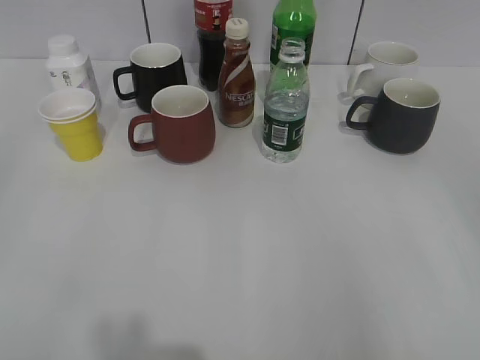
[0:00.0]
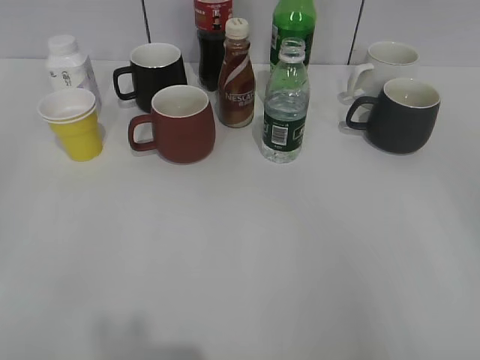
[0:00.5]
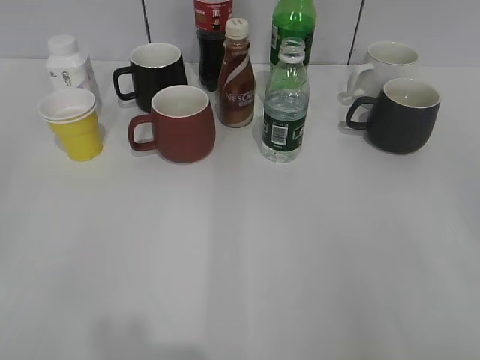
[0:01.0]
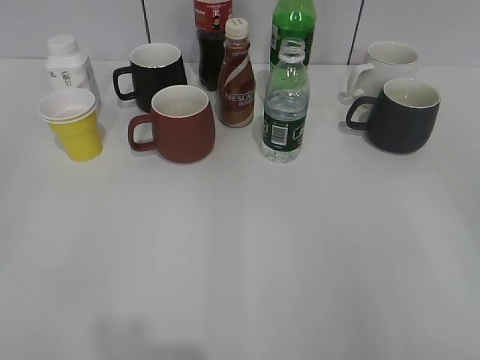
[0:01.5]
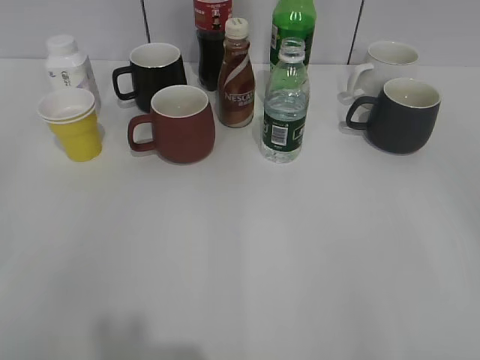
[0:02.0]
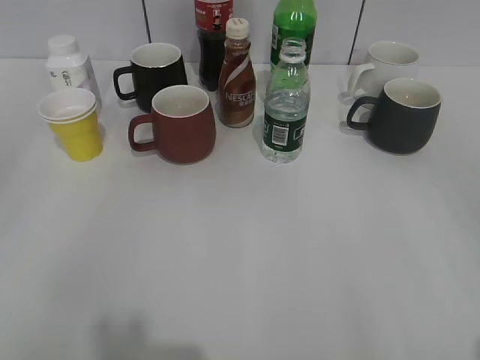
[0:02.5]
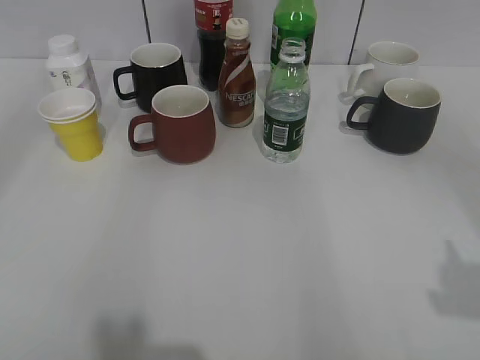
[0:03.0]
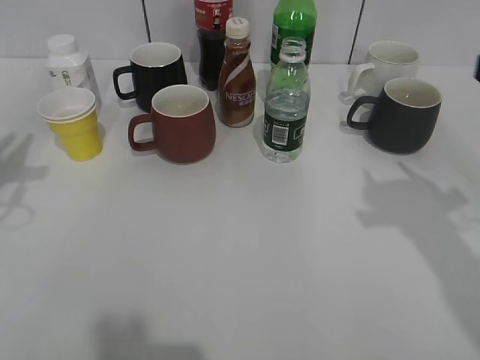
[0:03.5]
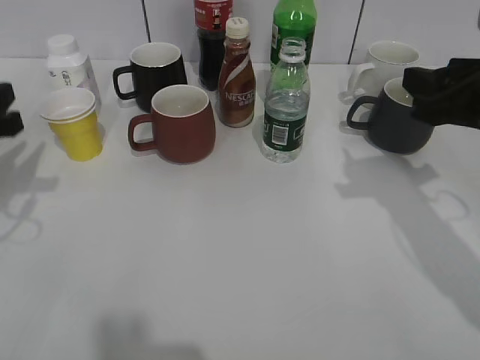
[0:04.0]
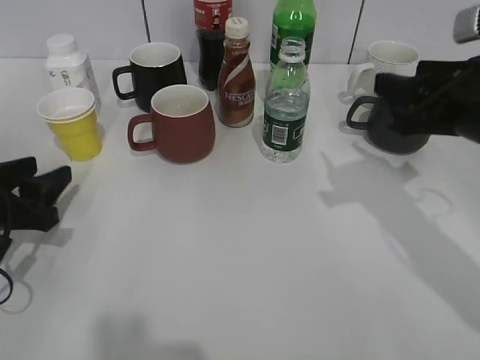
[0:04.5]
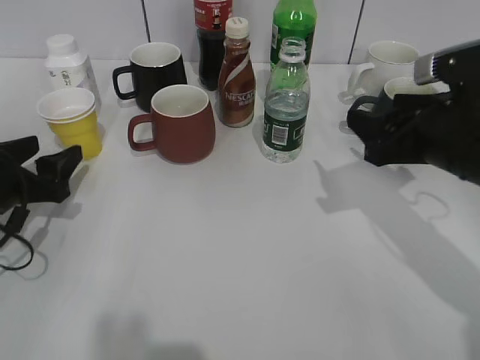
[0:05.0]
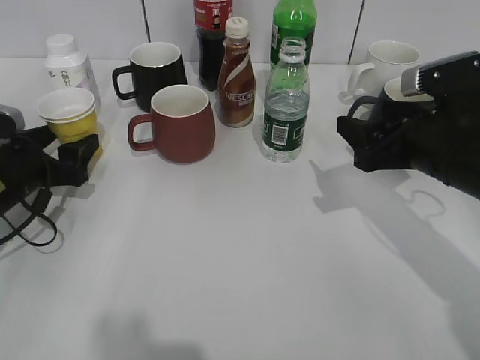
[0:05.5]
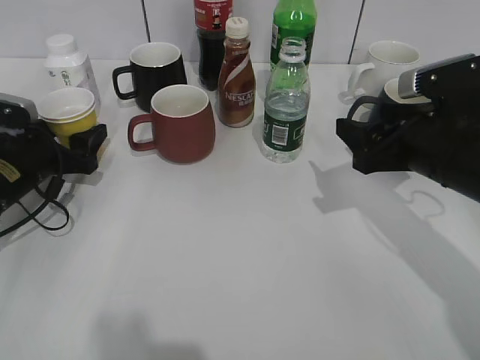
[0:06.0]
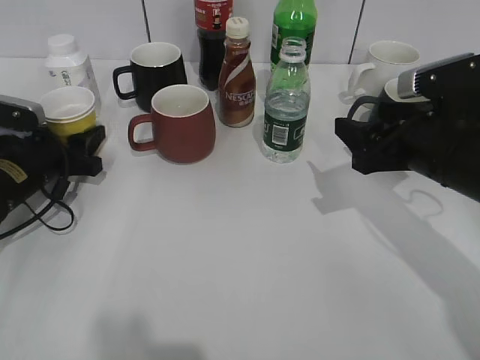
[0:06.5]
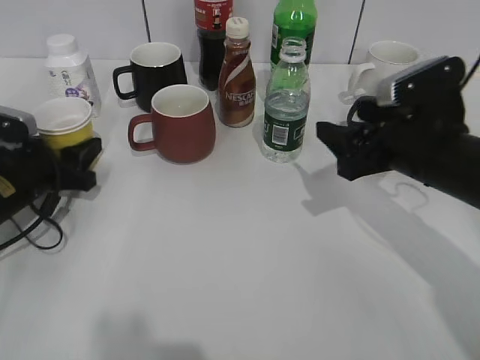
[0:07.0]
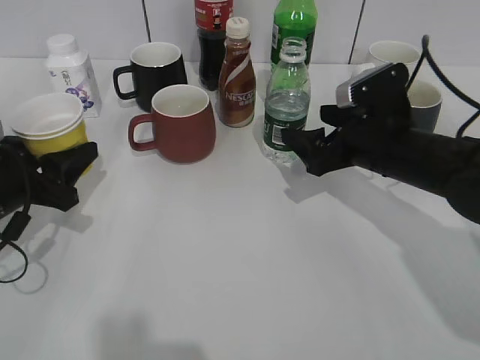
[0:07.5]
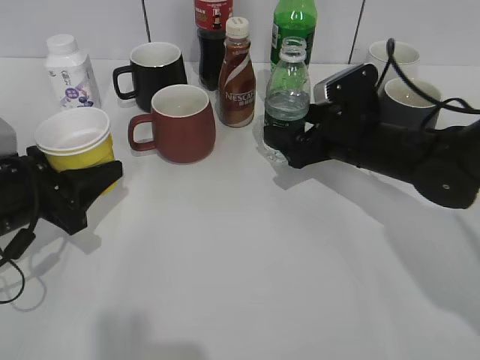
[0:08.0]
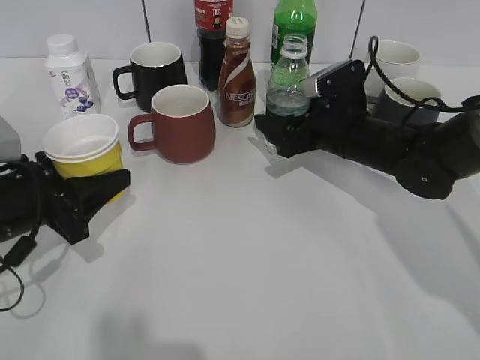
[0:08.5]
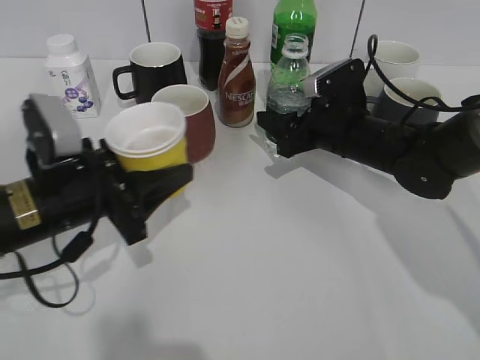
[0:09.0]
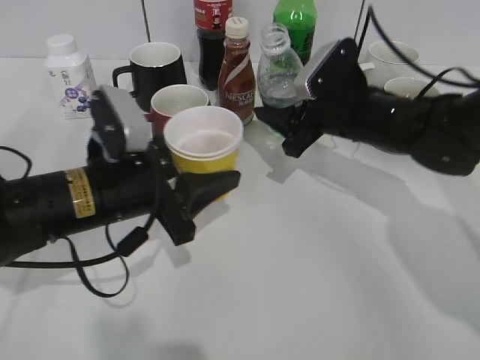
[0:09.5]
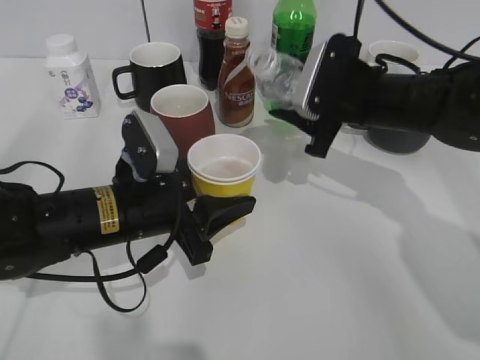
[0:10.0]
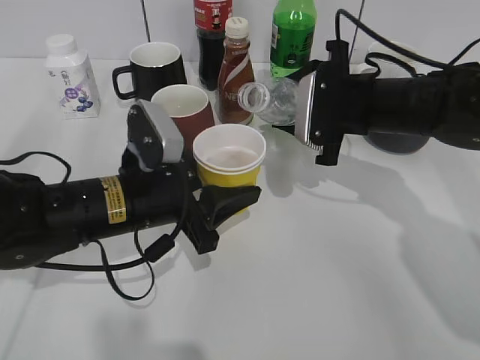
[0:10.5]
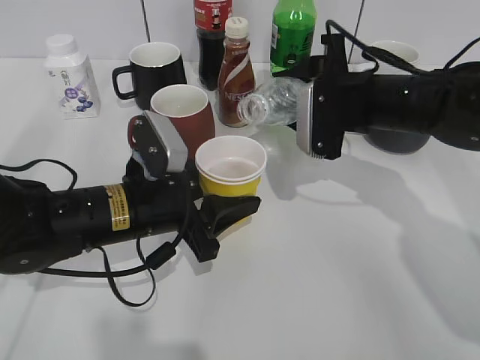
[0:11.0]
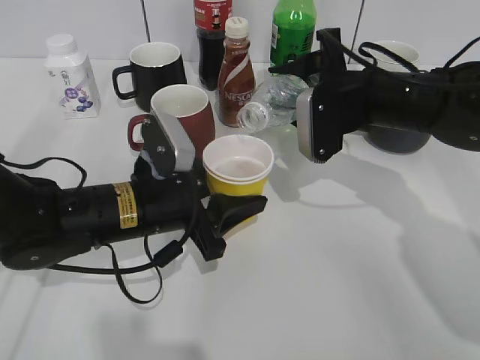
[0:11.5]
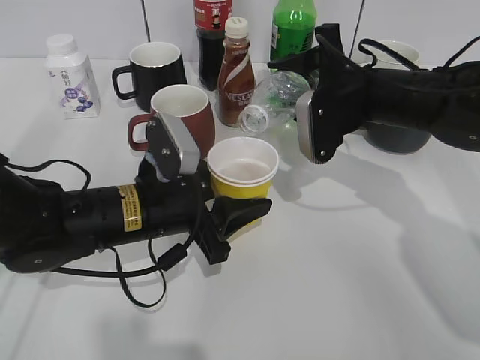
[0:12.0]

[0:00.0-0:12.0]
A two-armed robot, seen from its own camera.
Step, 0:00.0 to 0:06.0: Grasp the yellow paper cup with left gripper.
Step, 0:06.5 to 0:07.5: Lift the yellow paper cup with left gripper.
Step, 0:08.0 to 0:08.5: Grasp the bottle with water with right gripper.
0:02.0 to 0:04.0: The grippers both shift forward by some 25 cm.
0:04.0 to 0:06.0: The right gripper is displaced downward by approximately 5 cm, and opens up. The left gripper shifts approximately 10 cm downward and forward, and opens up.
0:06.0 to 0:08.0: The left gripper moves backward, approximately 10 cm, and closes its fingers; the right gripper heads forward, downward and to the left, covering some 10 cm, and opens.
0:08.0 to 0:10.0: The right gripper travels upward by roughly 5 cm, and closes its fingers. Meanwhile the left gripper is displaced to the right by some 15 cm.

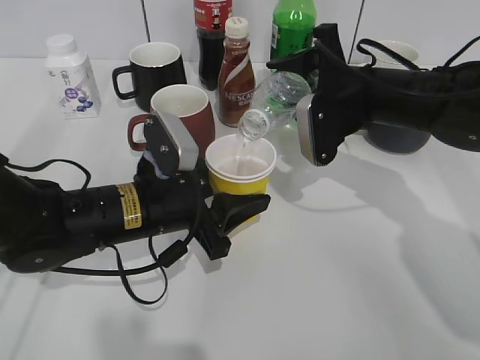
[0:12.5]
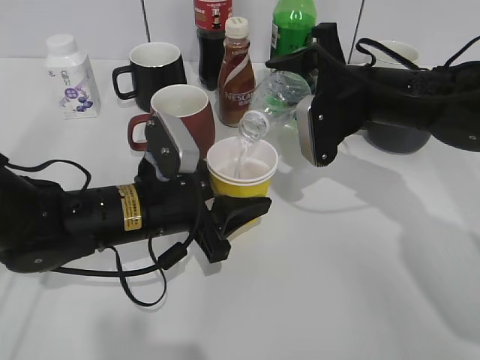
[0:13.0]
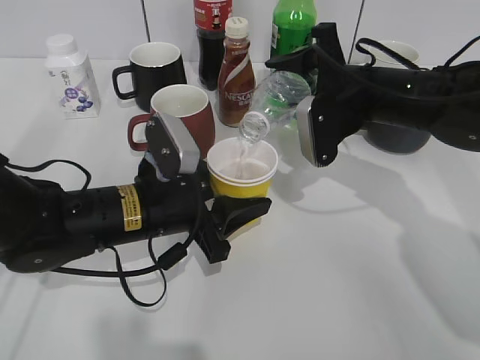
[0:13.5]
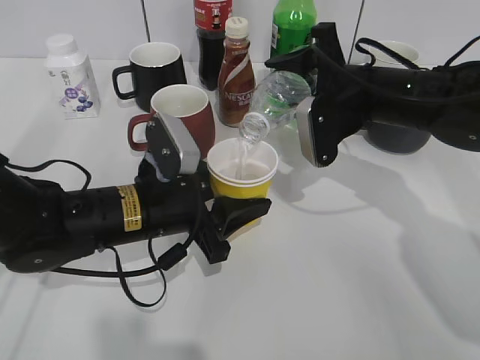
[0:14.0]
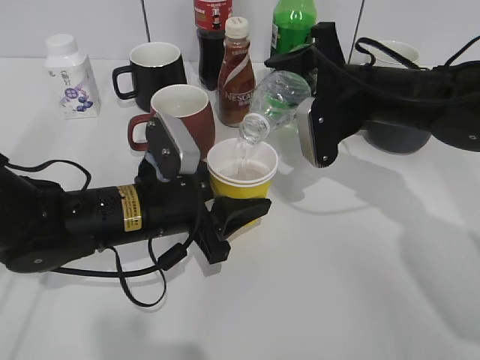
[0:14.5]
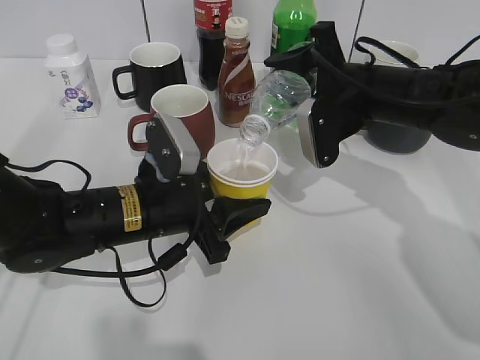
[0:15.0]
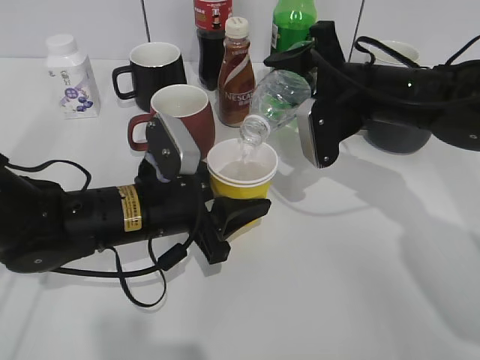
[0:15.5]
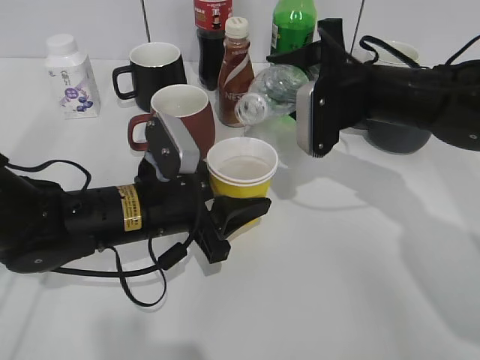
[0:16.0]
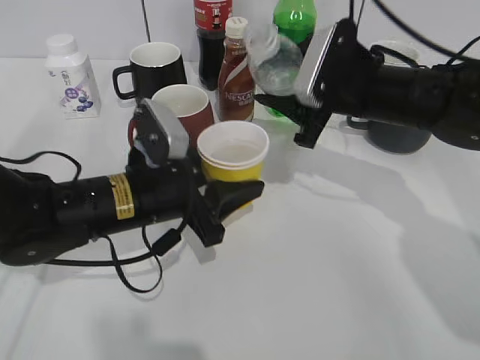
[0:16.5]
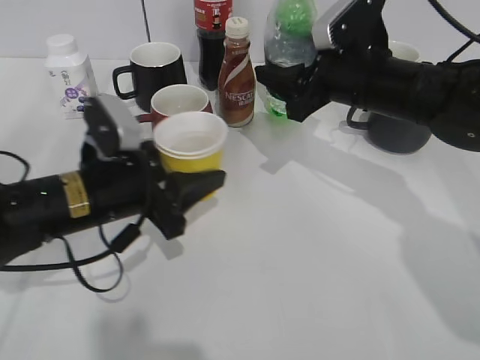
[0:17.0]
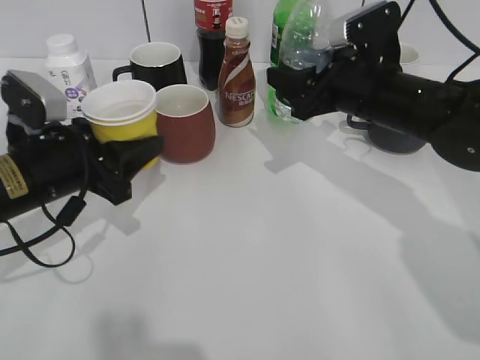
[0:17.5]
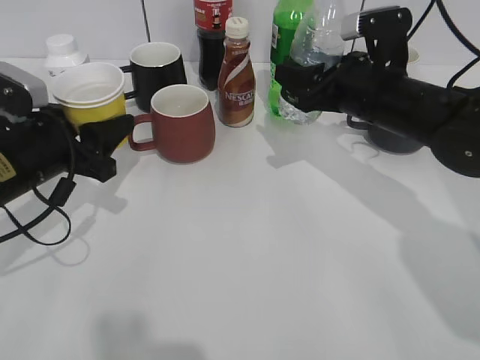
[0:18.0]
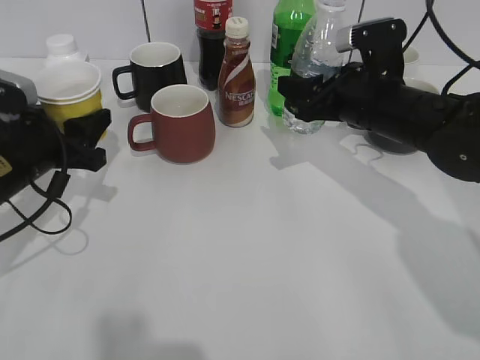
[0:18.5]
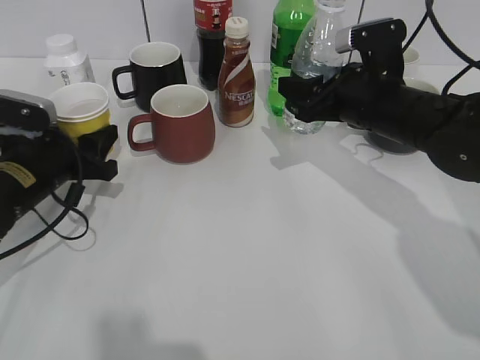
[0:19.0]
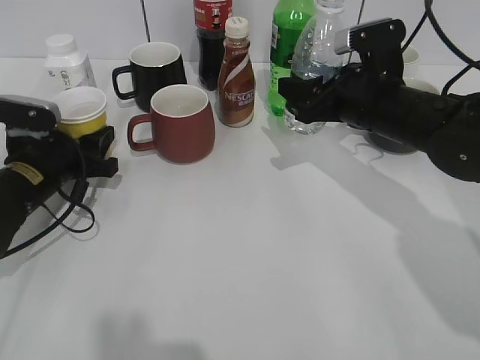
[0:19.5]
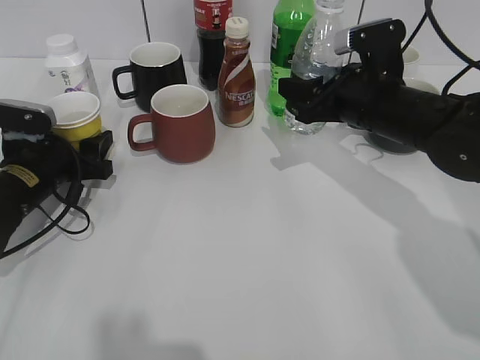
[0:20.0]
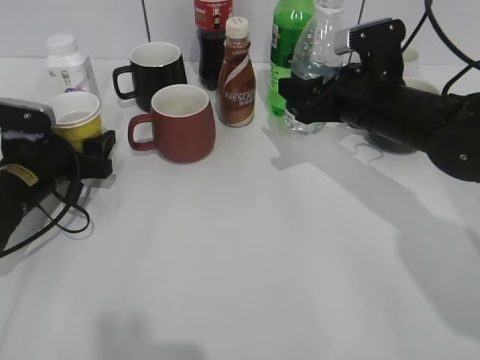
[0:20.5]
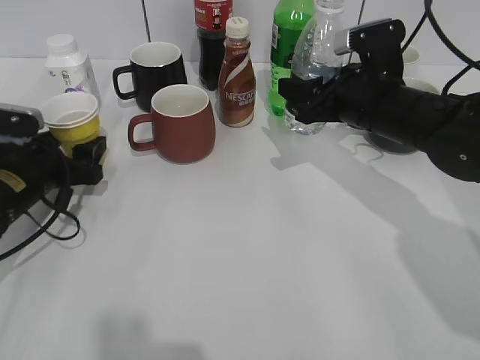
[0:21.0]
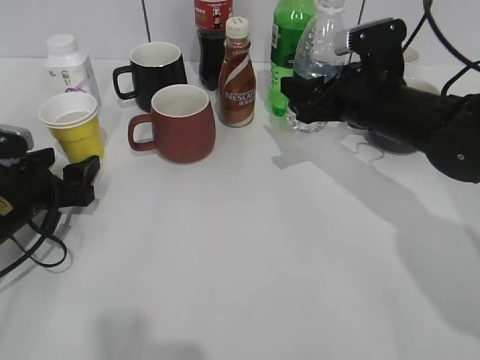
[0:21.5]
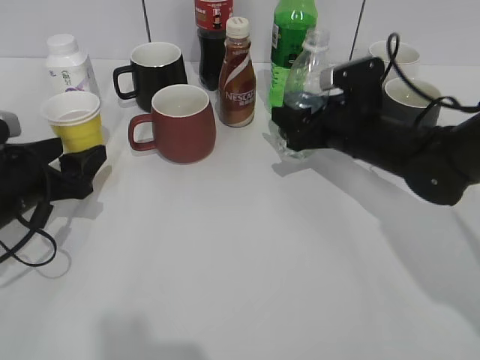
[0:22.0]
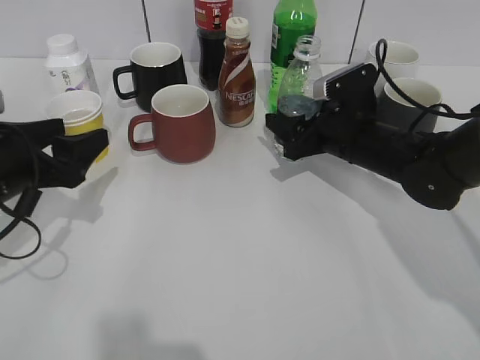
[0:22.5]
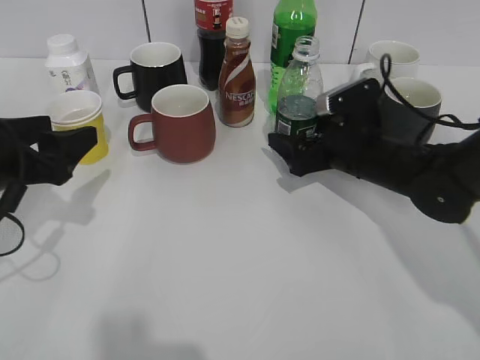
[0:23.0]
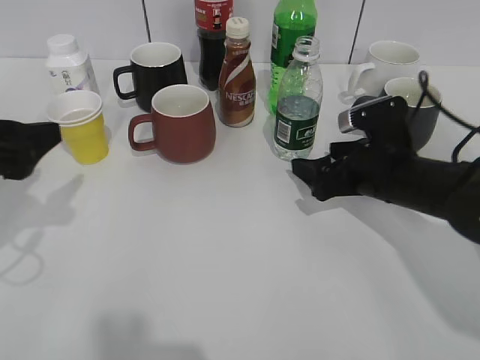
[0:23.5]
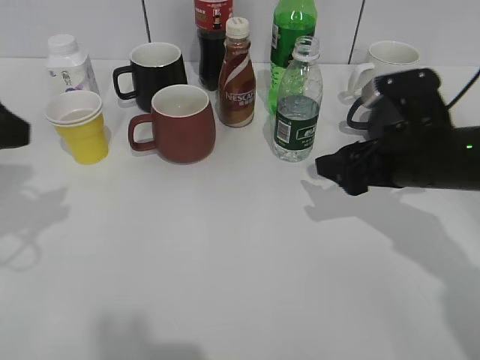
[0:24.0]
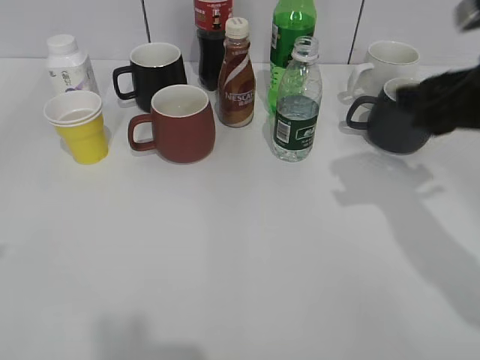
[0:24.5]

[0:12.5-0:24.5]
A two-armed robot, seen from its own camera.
Step, 0:12.5 to 0:16.0: Pour the water from bottle to cup with right gripper.
Step, 0:16.5 to 0:21.0: Place the yellow paper cup on the table with left gripper.
Step, 0:21.5 to 0:23.0: Place the water bottle on the table with right gripper.
0:12.5 to 0:14.5: Neither gripper changes place.
0:16.5 to 0:18.5: The left gripper heads to the left, covering some 15 cm.
0:18.5 to 0:20.5: The left gripper goes some 5 cm downward, and opens.
0:20.5 to 0:22.5: The right gripper is displaced downward by about 5 cm, while the left gripper shifts roughly 10 cm backward and upward.
0:22.5 to 0:24.5: The right gripper shifts some 20 cm upward, backward and to the right, and opens, then closes once more. The left gripper shifts approximately 25 cm upward and backward.

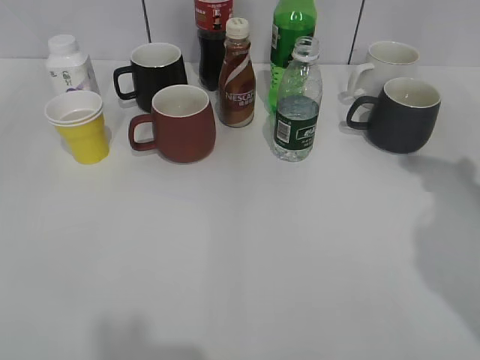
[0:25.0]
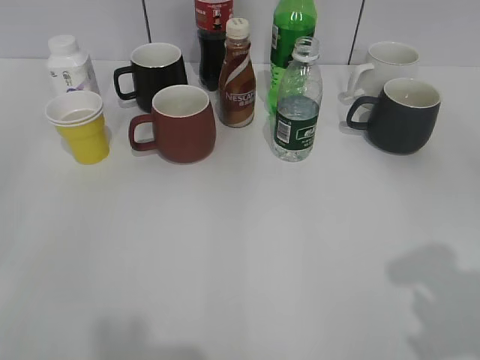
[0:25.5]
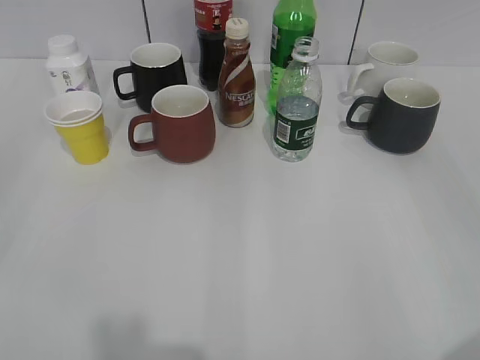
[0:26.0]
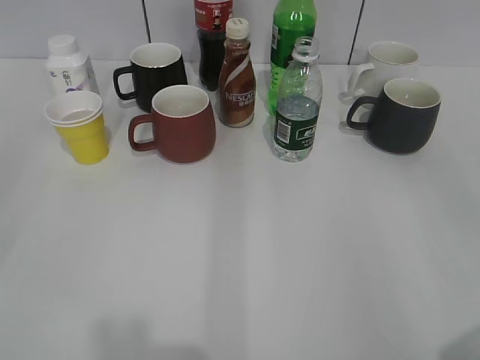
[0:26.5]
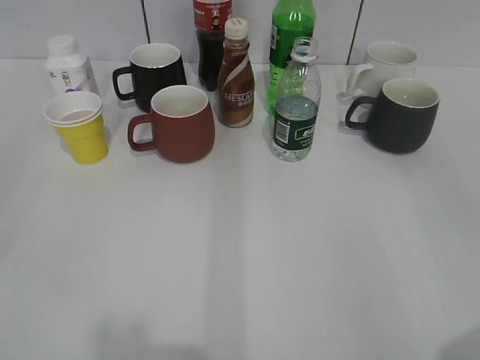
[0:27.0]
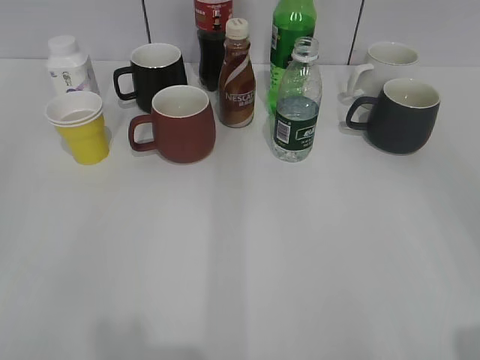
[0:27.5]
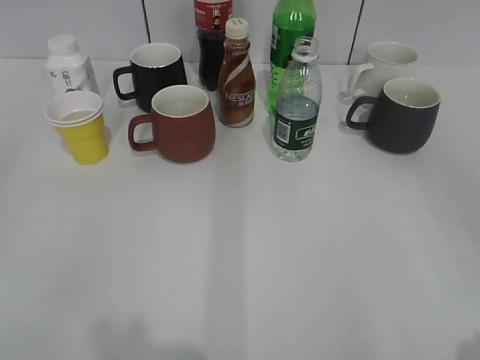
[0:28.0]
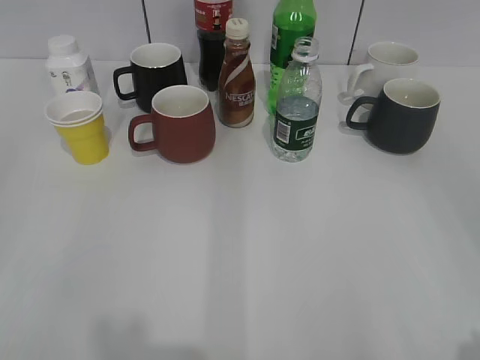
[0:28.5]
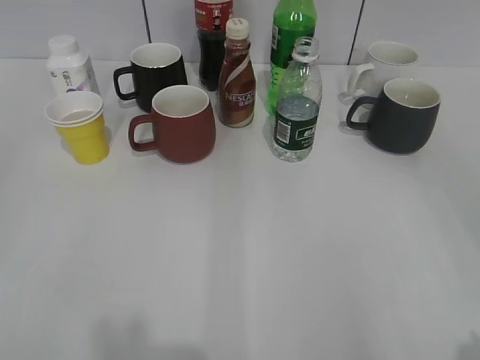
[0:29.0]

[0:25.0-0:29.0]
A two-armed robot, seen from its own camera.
0:25.0 to 0:27.0: The left gripper travels downward by roughly 10 cm. The right gripper shifts roughly 20 cm backward.
